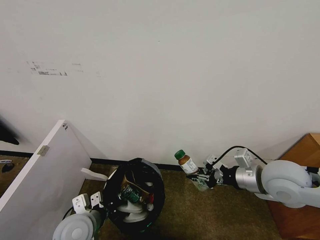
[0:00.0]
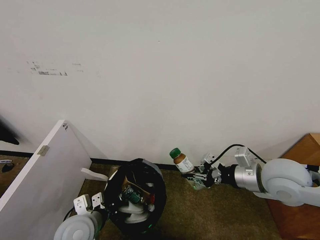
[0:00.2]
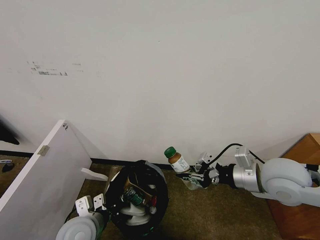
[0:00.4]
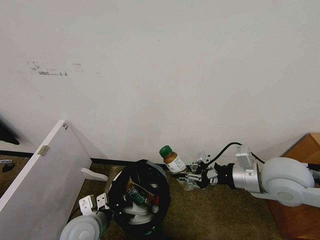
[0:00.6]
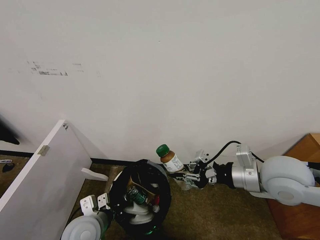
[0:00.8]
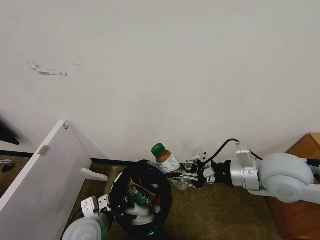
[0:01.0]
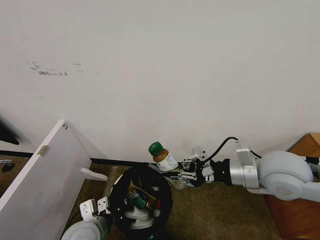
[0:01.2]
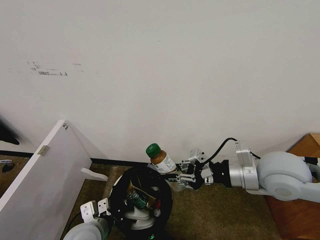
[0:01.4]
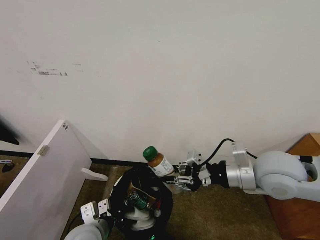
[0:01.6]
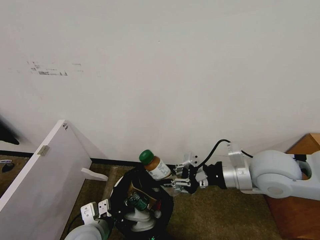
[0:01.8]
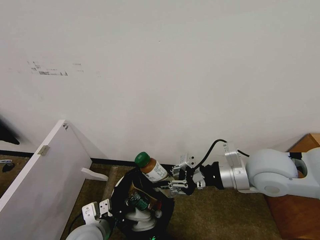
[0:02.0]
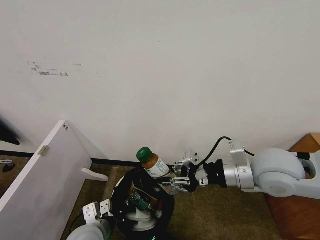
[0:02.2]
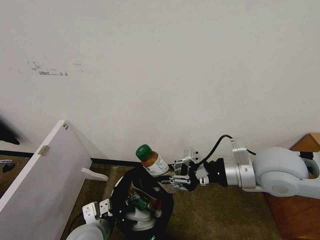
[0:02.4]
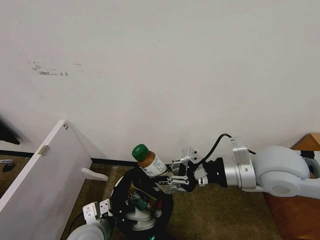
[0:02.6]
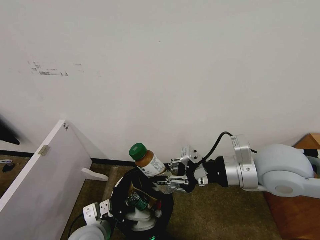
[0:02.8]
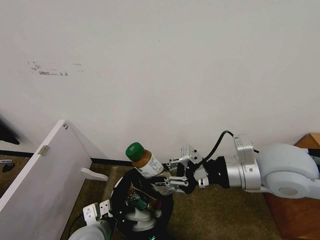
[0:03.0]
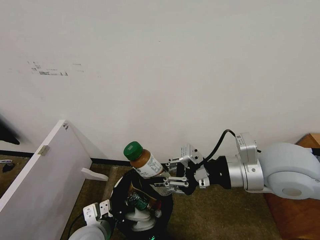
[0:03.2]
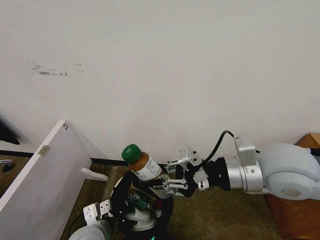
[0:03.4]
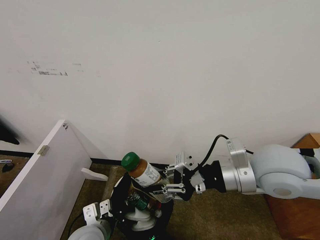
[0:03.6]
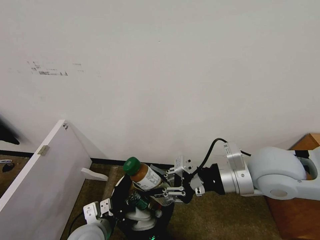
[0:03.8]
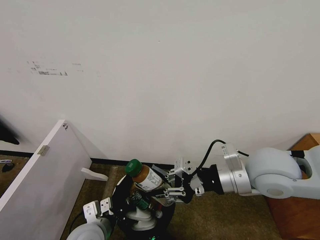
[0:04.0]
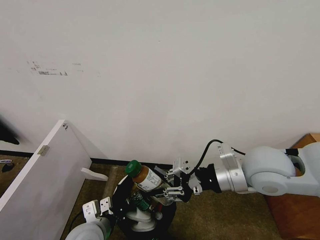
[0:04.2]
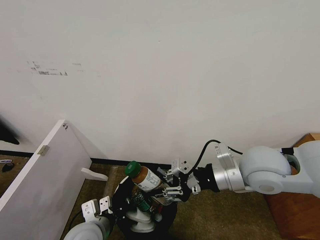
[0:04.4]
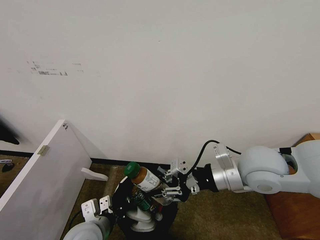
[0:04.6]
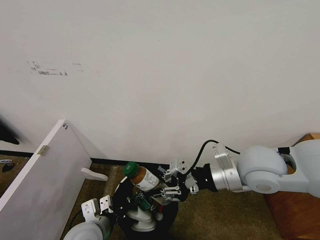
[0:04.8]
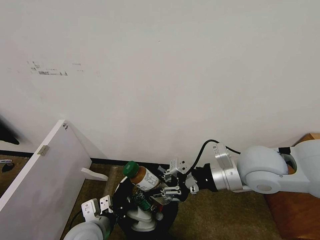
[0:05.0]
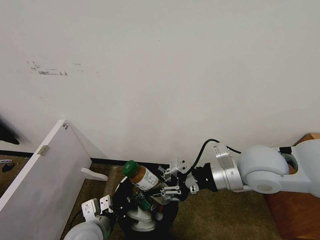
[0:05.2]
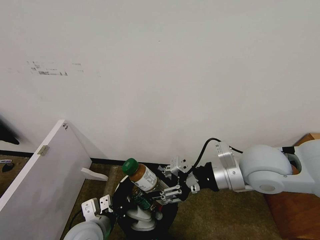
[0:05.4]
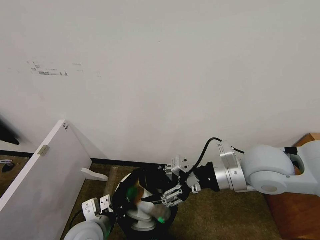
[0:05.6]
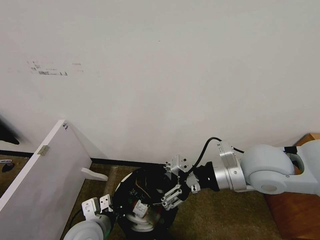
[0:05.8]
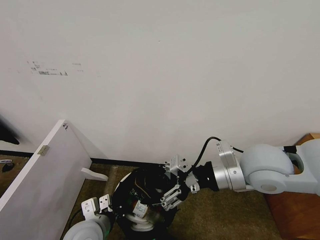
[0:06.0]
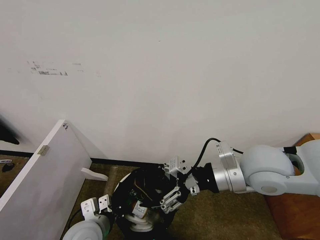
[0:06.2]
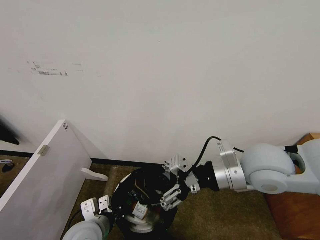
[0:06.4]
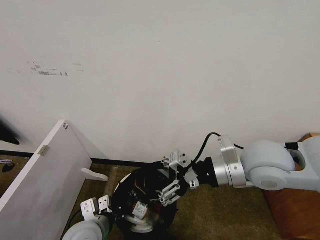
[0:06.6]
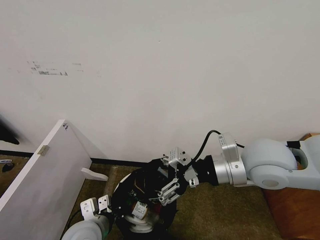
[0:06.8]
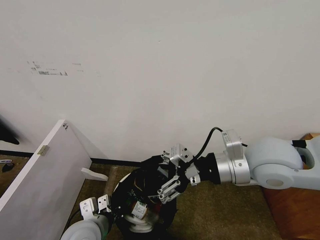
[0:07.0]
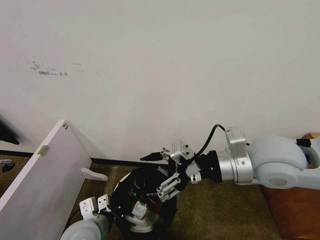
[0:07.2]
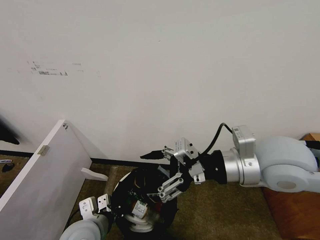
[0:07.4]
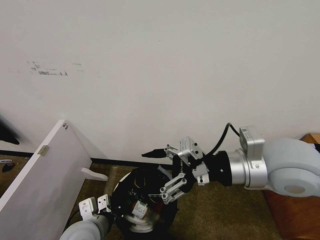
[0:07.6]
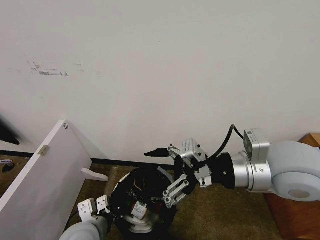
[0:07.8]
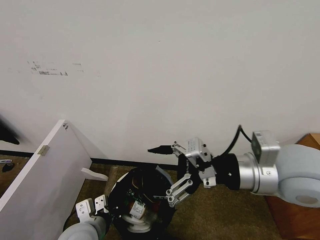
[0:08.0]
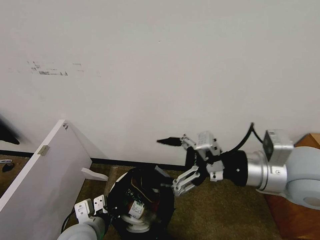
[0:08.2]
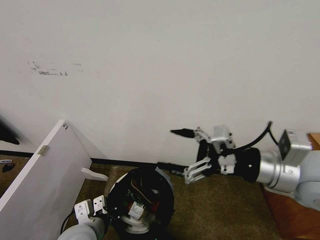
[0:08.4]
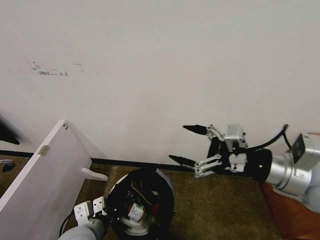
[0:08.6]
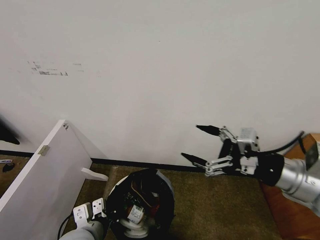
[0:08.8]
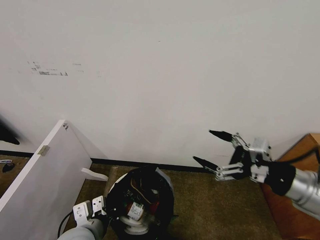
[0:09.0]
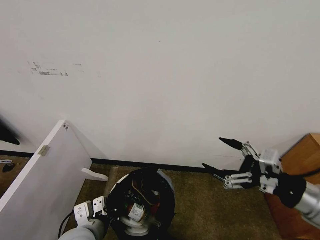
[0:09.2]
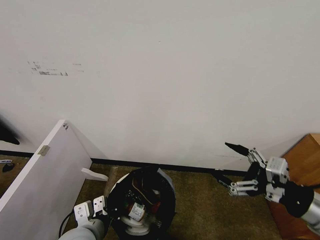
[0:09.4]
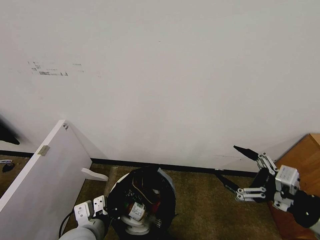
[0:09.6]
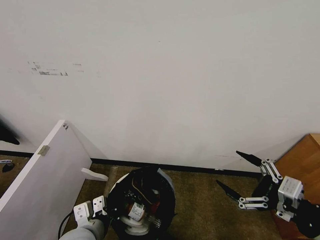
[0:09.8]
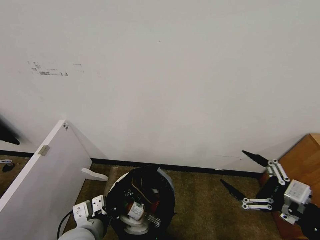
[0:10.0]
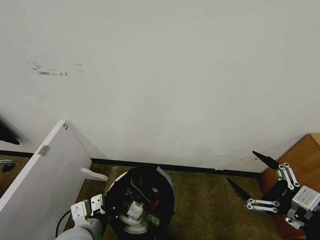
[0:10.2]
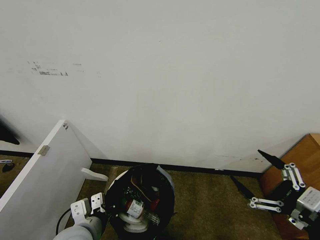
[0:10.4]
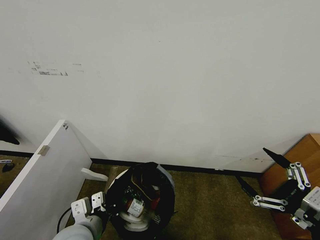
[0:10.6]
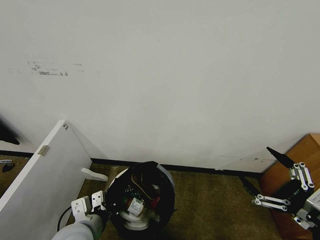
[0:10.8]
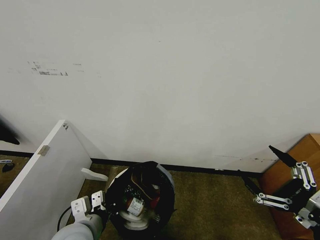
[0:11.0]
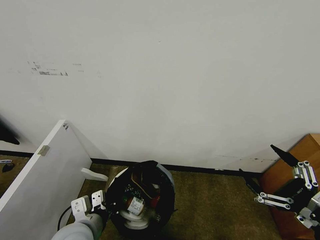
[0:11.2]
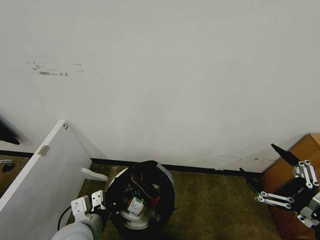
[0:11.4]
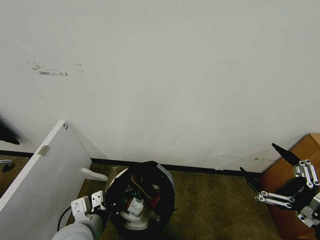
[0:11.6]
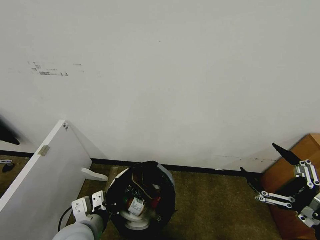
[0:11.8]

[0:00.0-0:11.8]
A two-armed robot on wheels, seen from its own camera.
Task of the whole recording: Pick up the trash bin and place the garbage on the floor into it.
0:00.0 to 0:01.4: The right gripper changes place by about 5 cm.
0:01.4 to 0:03.0: The right gripper ends up roughly 5 cm from where it was.
0:03.0 to 0:04.4: The grippers make only small movements.
0:04.4 to 0:06.0: The right gripper opens up.
0:06.0 to 0:07.4: The grippers move only a little.
0:07.4 to 0:08.8: The right gripper travels to the right and backward by some 10 cm.
0:08.8 to 0:10.4: The right gripper shifts about 15 cm backward, downward and to the right.
0:10.4 to 0:11.8: The grippers stay close to where they were, moving slightly.
